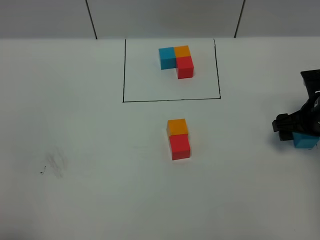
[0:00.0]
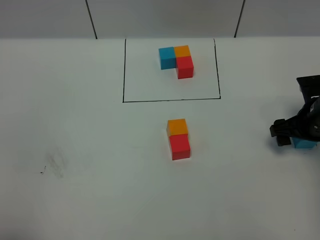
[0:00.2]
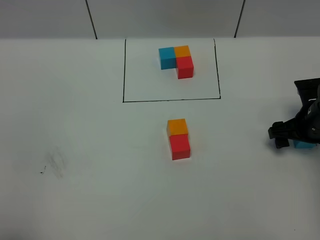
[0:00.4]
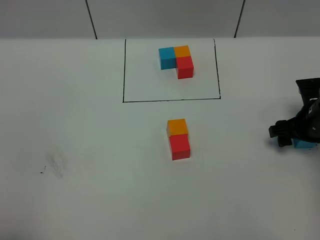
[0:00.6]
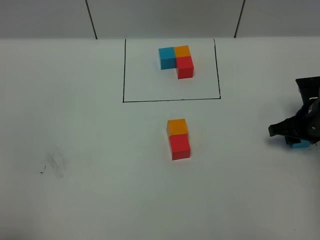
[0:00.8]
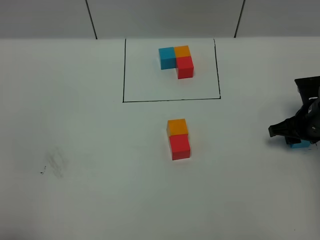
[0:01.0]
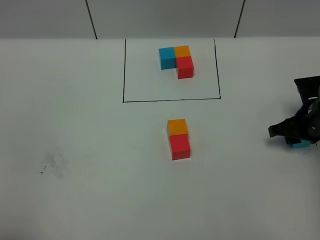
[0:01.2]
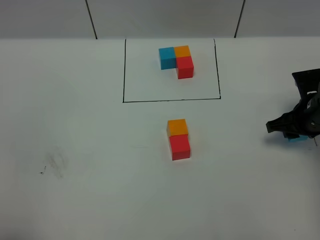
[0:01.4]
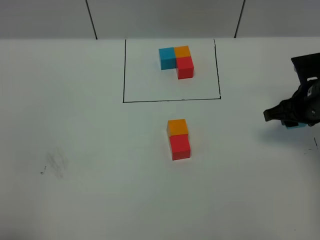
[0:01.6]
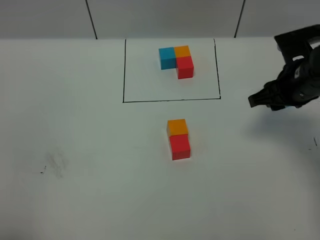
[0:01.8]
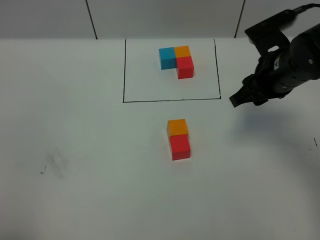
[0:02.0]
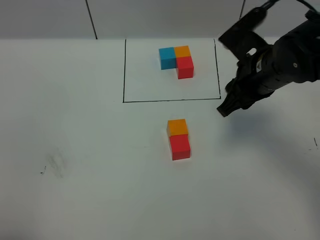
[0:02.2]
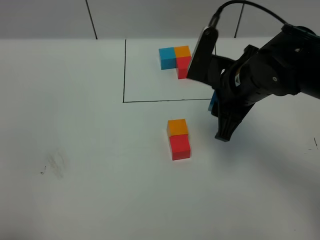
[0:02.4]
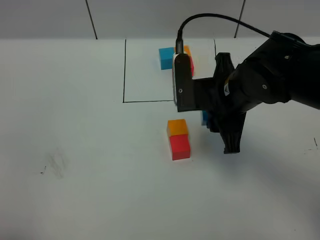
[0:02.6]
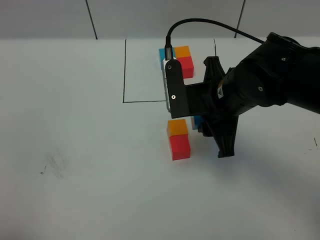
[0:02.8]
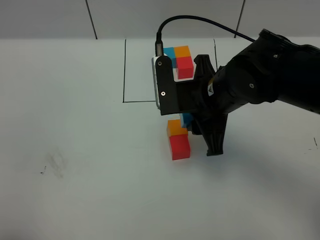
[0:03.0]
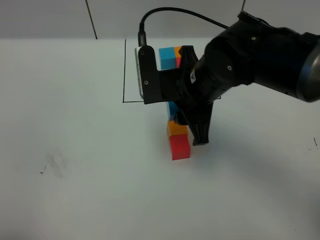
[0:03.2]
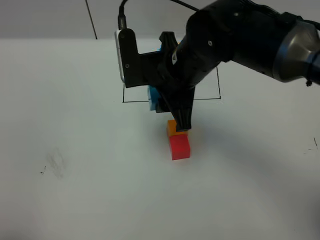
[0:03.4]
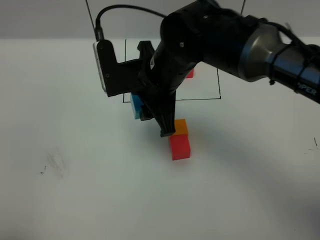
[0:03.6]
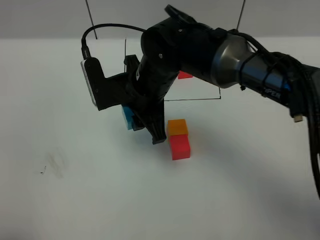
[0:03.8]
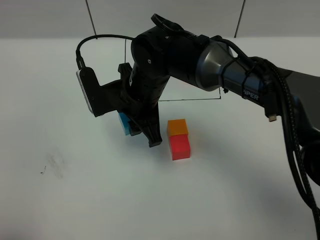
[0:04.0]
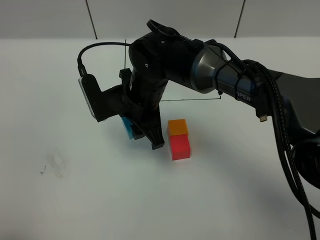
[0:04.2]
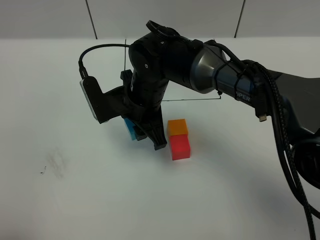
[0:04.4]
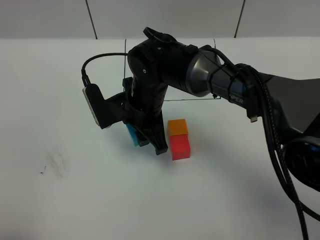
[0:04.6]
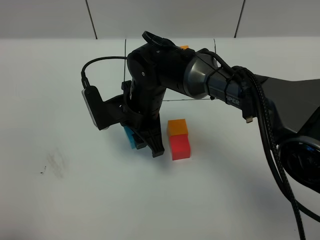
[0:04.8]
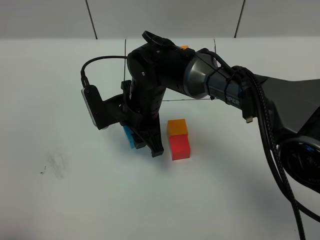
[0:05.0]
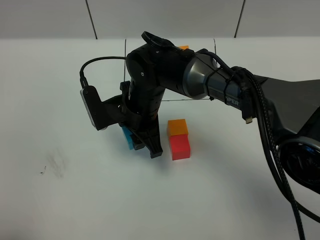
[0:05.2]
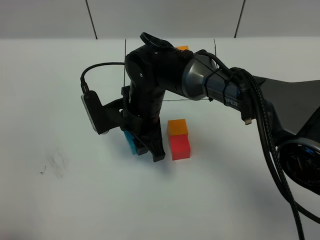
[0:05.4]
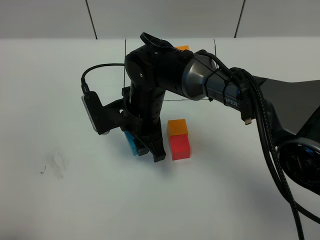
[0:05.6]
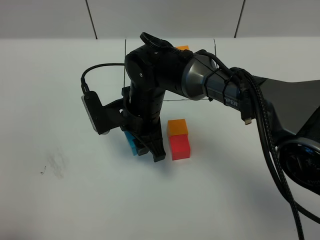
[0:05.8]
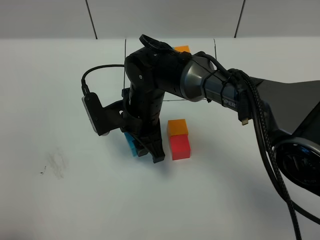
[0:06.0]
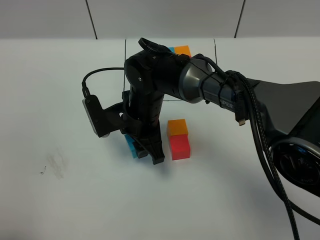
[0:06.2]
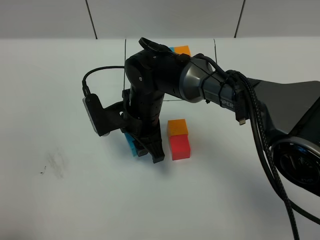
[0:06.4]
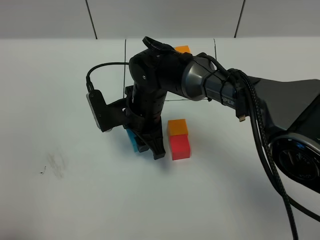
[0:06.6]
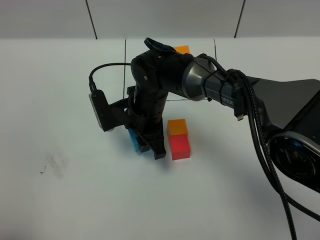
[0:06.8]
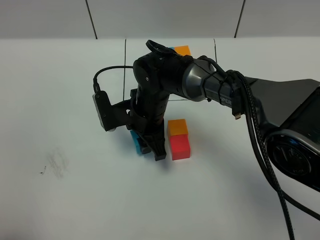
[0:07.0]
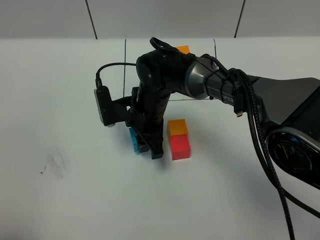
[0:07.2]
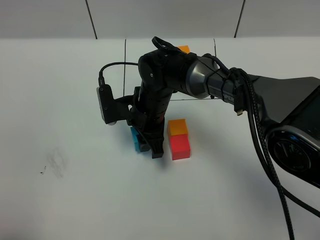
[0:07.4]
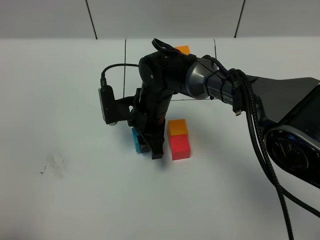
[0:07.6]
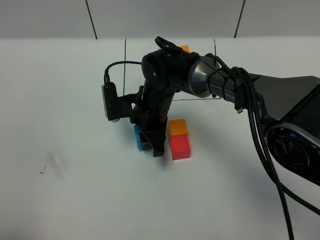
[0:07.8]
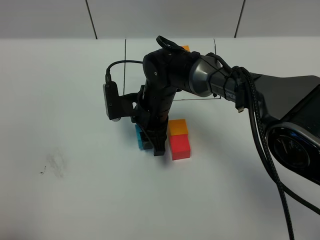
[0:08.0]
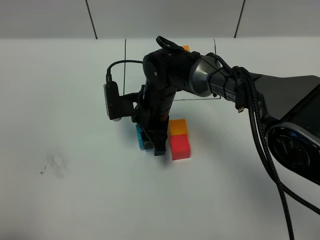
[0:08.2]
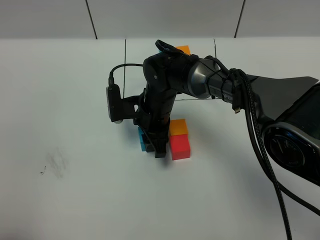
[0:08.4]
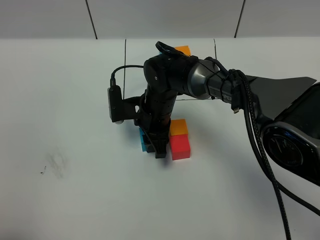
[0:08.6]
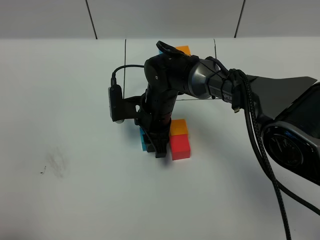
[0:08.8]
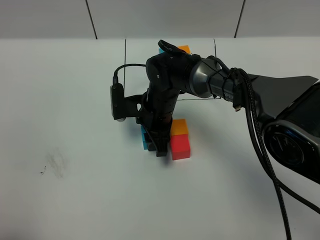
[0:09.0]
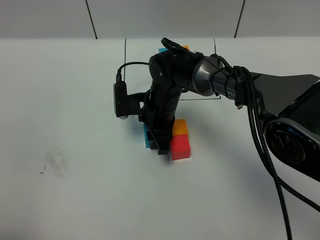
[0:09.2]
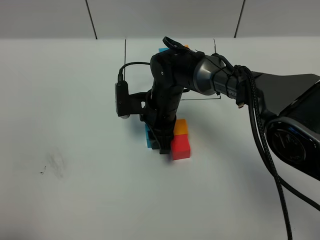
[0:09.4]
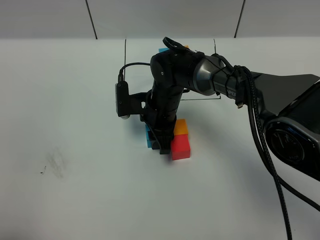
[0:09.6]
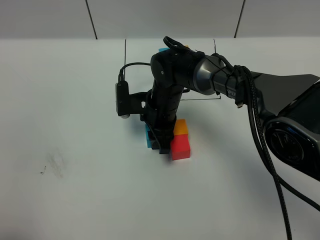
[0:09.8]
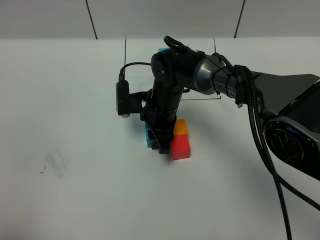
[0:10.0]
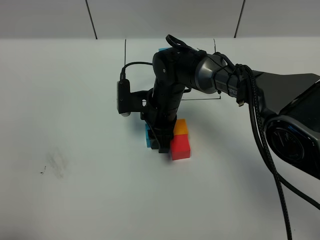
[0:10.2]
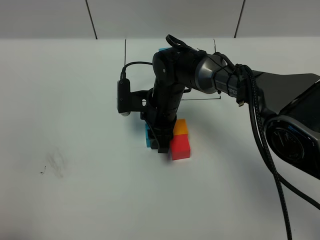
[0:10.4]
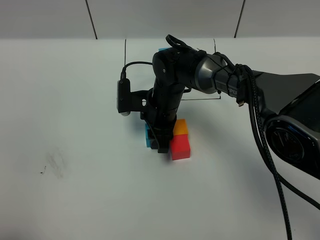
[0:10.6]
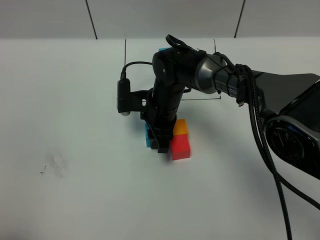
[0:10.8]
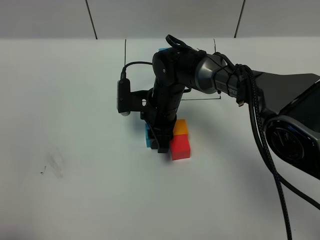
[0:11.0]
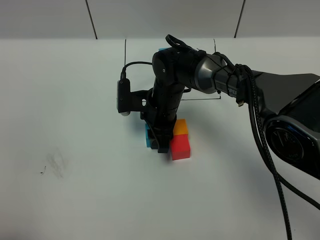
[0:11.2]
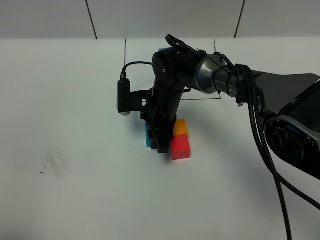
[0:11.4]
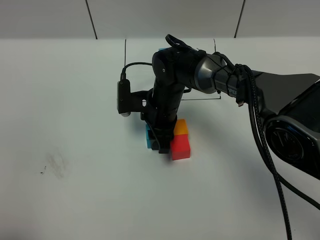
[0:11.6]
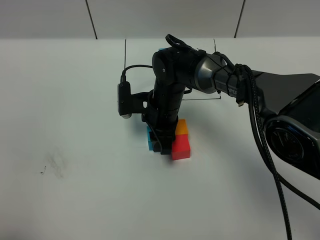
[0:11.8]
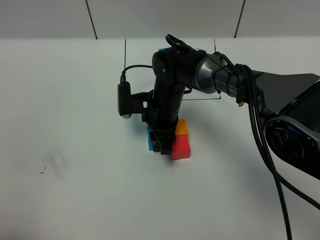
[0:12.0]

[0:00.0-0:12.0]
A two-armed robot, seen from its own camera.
Task of the whole recording: According to the building block template in front, assemble the scattered blocks together.
0:00.0 to 0:01.6: The right gripper ends up some 5 cm from where it was, and closes.
0:01.6 to 0:03.0: The right gripper goes about 20 cm to the left.
0:03.0 to 0:04.4: The right gripper is displaced to the left, downward and forward by some 15 cm.
0:04.4 to 0:06.0: There are only small adjustments of the grippers.
0:06.0 to 0:07.6: There are only small adjustments of the grippers.
0:07.6 to 0:09.0: The grippers make only small movements.
0:09.0 to 0:10.4: The two grippers keep their place.
0:10.4 to 0:12.0: Neither gripper changes place.

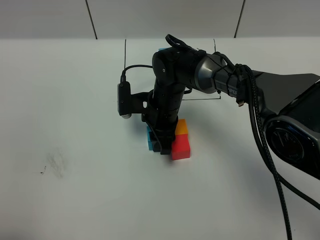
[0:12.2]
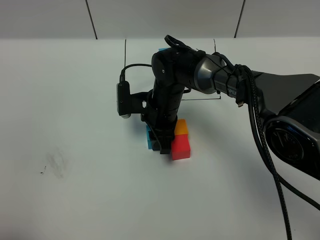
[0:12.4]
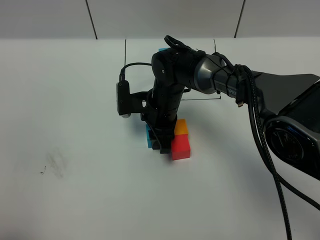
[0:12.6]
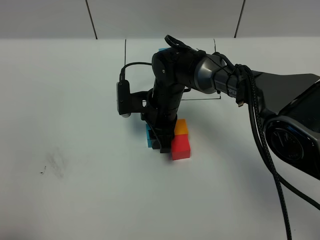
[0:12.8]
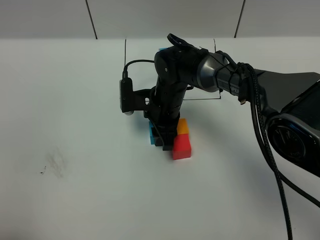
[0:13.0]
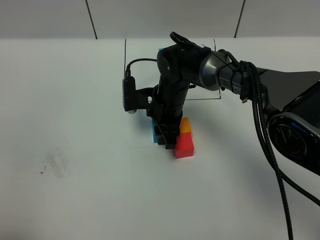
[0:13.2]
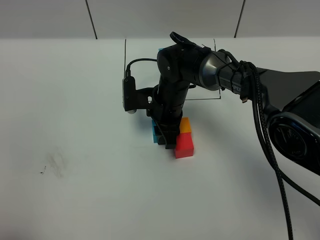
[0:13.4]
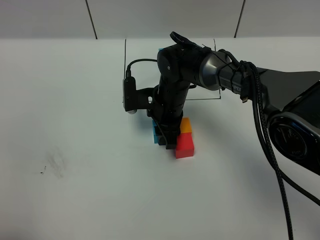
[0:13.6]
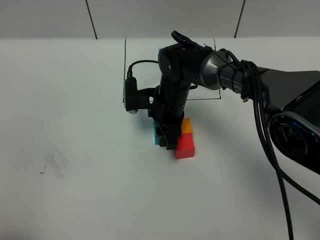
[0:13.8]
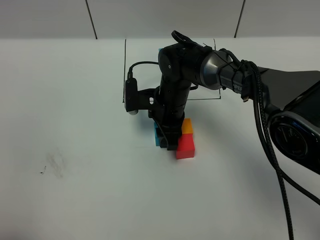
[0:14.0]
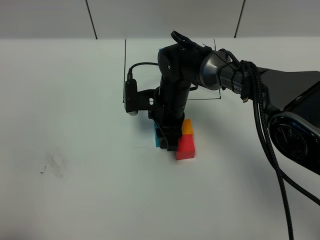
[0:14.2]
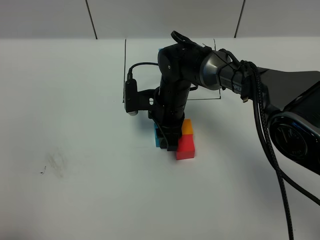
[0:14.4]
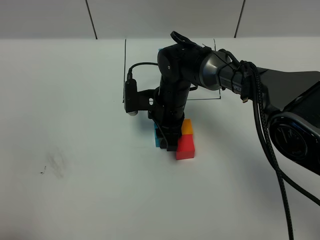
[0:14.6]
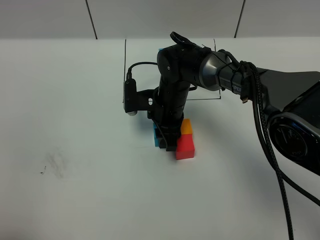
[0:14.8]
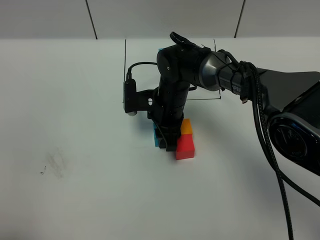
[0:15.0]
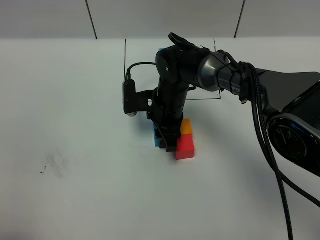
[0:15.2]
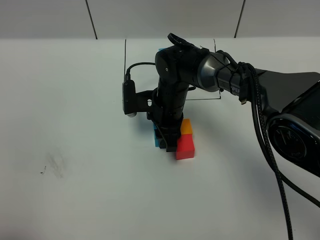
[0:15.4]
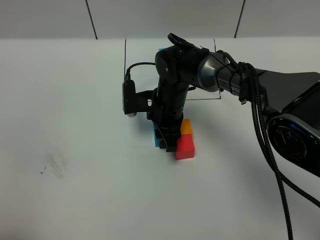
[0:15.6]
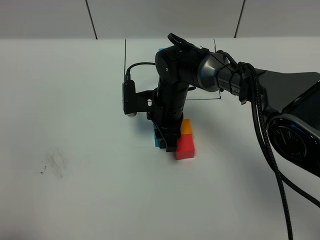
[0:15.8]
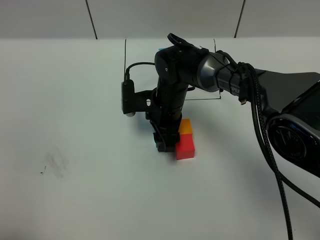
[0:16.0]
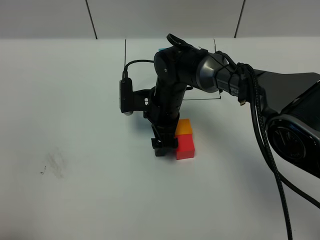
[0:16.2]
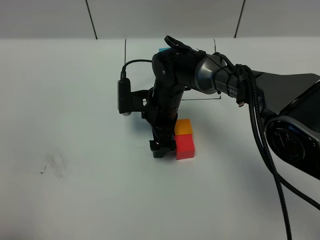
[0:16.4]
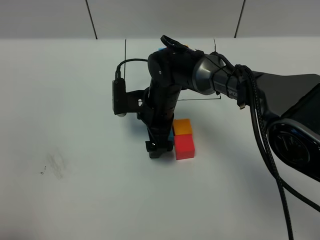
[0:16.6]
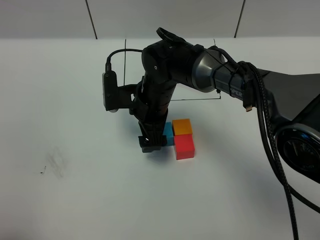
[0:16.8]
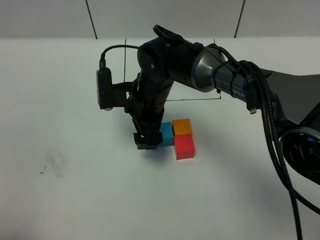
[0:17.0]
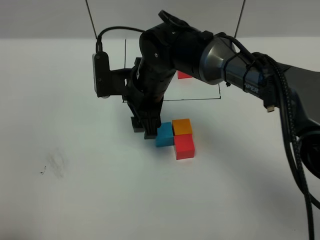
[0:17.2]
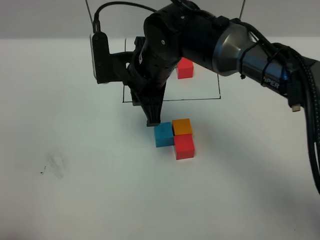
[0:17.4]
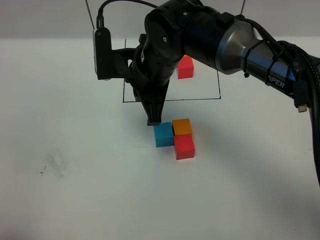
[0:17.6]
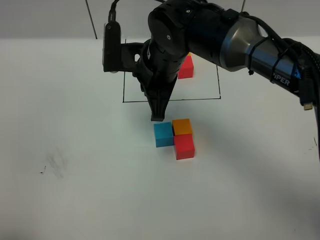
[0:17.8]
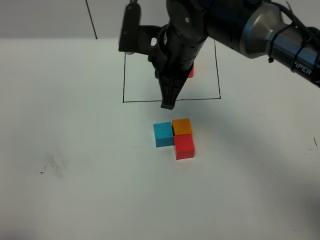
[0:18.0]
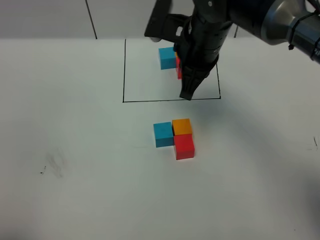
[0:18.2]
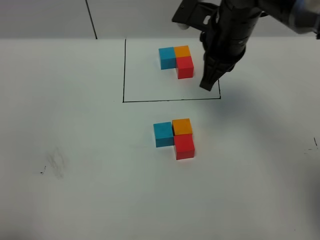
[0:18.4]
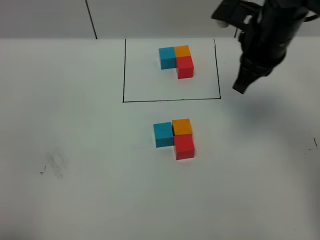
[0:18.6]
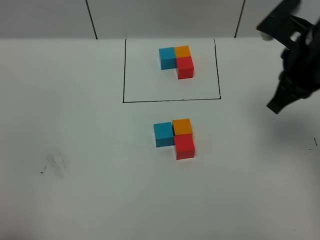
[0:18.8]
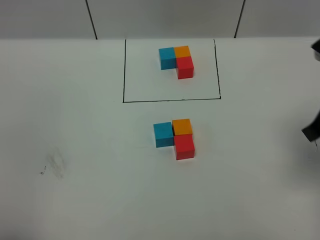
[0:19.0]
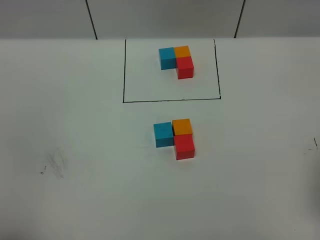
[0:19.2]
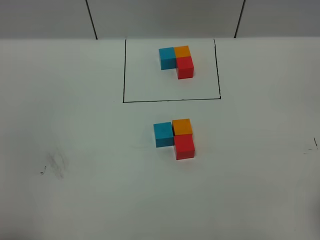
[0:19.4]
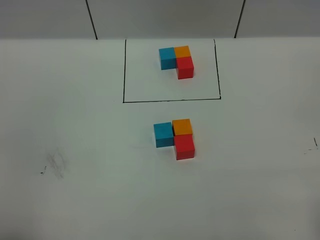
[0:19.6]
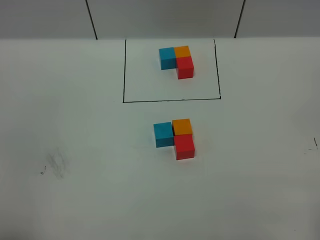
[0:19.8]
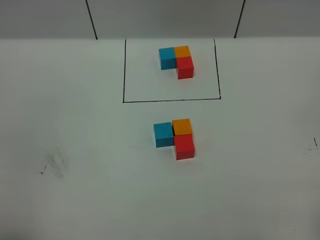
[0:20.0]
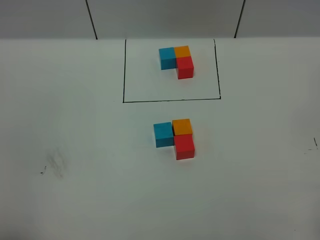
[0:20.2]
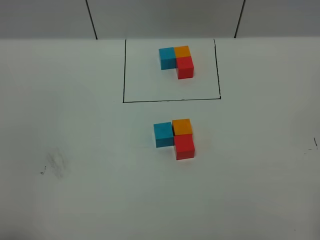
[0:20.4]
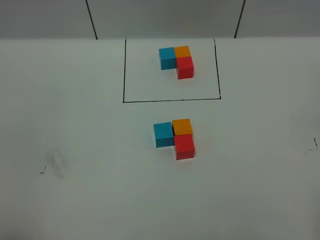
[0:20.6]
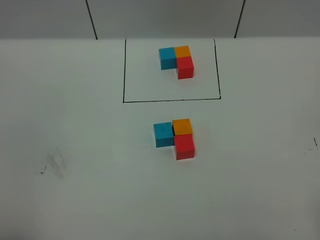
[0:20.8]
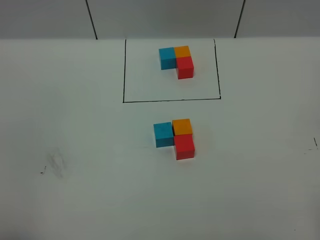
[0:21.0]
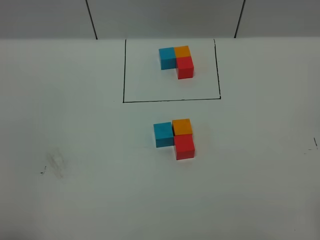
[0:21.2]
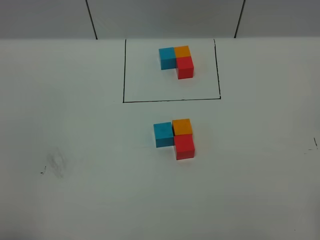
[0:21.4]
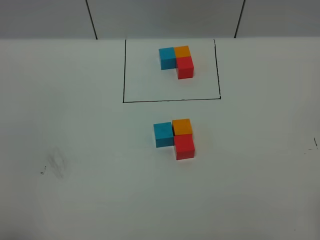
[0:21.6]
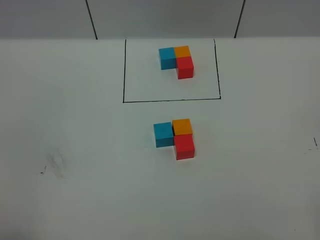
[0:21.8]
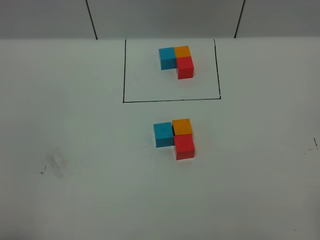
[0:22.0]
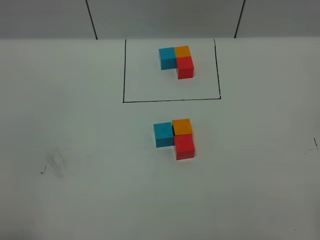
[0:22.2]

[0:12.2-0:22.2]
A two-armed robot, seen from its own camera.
Task of the whole recording: According to the building block template in front, assemble the scattered blocks together.
0:12.2 to 0:13.6: The grippers move only a little.
0:13.6 to 0:15.0: Both grippers stay put.
0:15.0 to 0:16.4: The right gripper opens its fingers.
0:16.4 to 0:18.0: The right gripper travels upward by roughly 15 cm, and closes up.
0:18.0 to 0:19.4: The right gripper goes about 35 cm to the right and backward.
